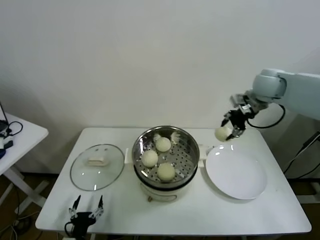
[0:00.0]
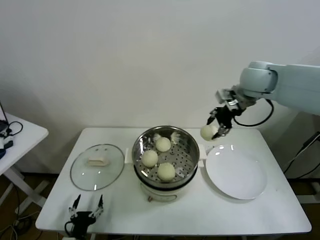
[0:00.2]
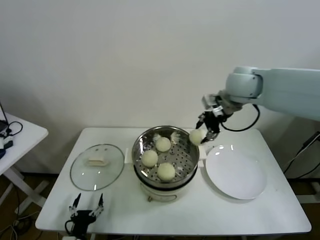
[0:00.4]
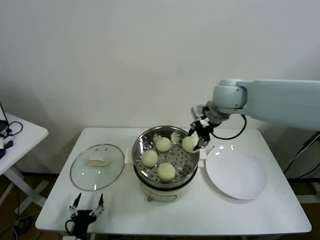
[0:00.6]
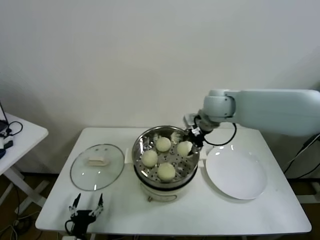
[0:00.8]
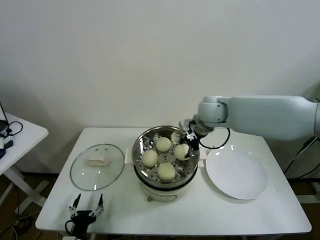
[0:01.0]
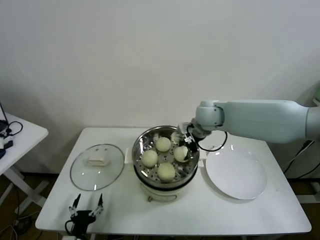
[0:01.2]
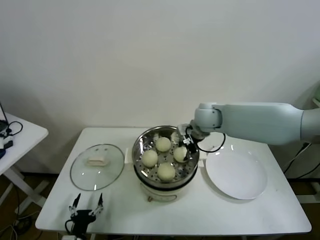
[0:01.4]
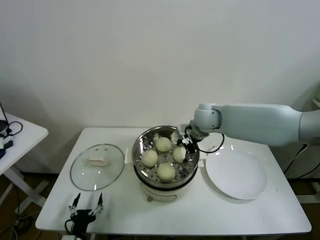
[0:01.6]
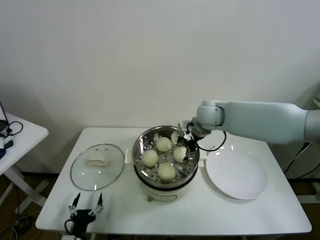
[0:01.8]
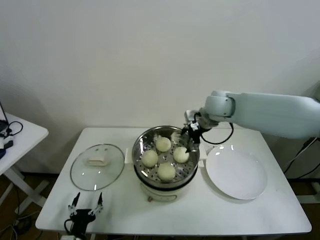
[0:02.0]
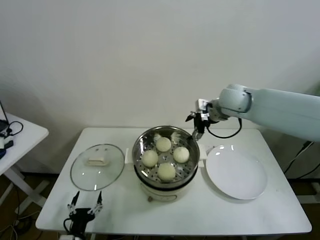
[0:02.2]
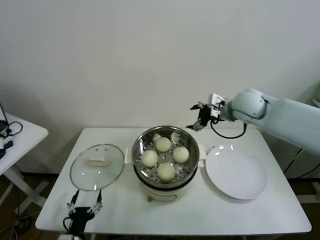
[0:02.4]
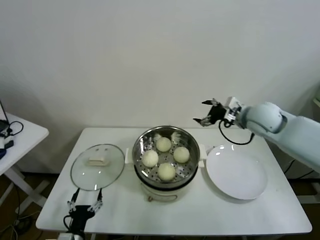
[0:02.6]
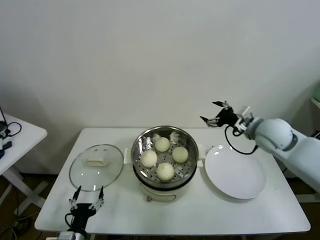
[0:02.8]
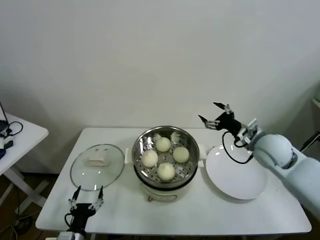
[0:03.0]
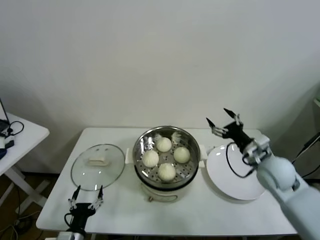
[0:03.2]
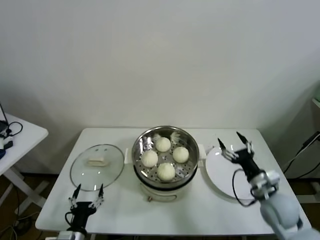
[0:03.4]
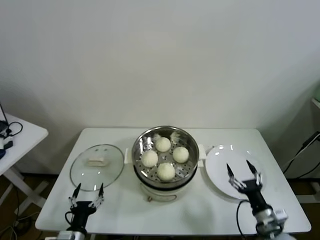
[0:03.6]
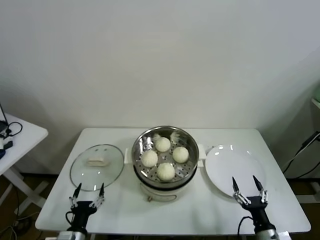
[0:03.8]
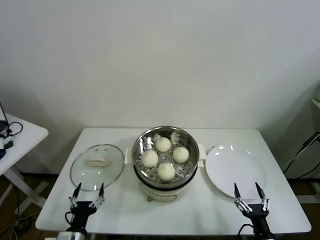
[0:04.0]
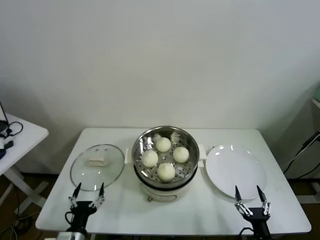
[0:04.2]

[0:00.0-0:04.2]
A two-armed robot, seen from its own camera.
Task of the whole recording: take steamed baozi put them in steamer.
Step, 0:00.0 to 0:01.6: Place the baozi on the steamer with right gripper.
0:00.0 to 0:01.4: The right gripper shifts approximately 20 cm to the left and downward.
0:01.4 to 0:02.8: The right gripper is displaced to the right and backward by approximately 20 cm, and opens.
0:02.8 to 0:04.2: The right gripper shifts approximately 40 cm backward and downward.

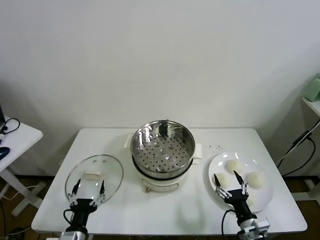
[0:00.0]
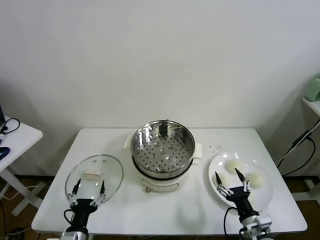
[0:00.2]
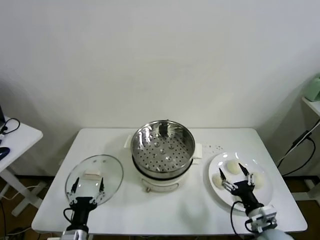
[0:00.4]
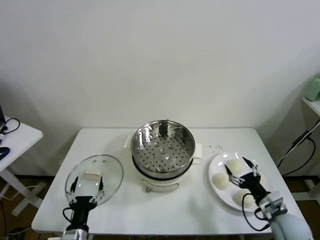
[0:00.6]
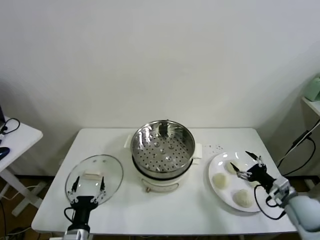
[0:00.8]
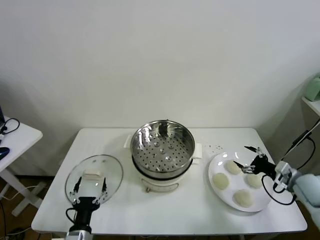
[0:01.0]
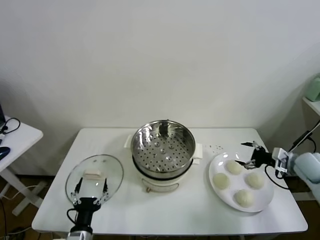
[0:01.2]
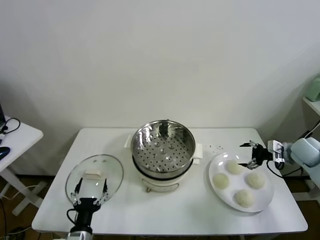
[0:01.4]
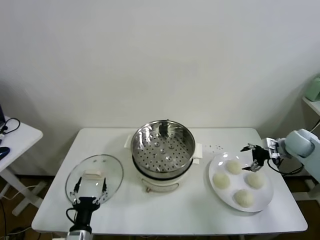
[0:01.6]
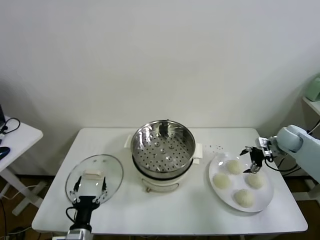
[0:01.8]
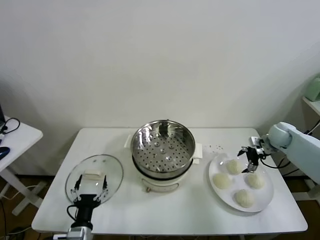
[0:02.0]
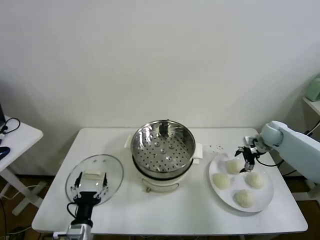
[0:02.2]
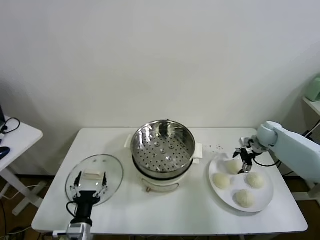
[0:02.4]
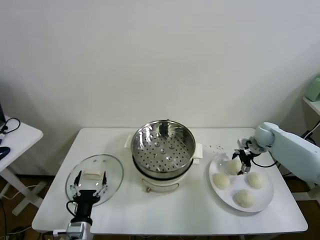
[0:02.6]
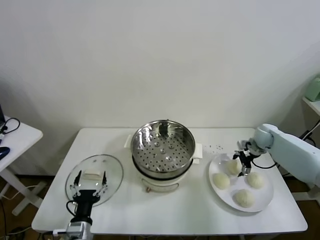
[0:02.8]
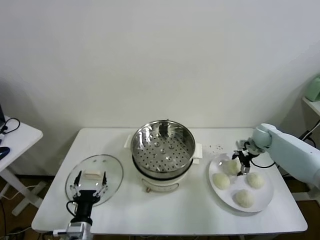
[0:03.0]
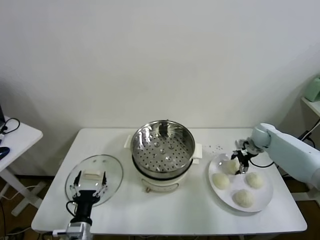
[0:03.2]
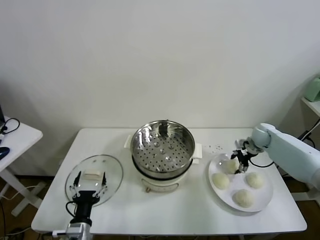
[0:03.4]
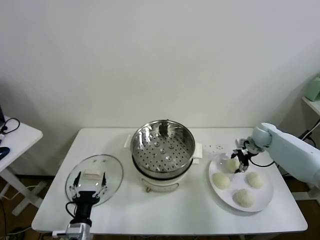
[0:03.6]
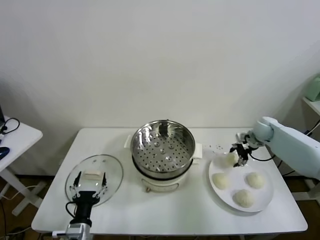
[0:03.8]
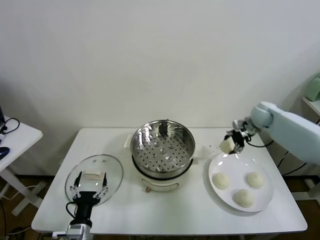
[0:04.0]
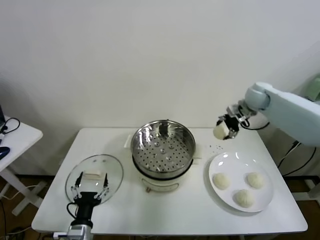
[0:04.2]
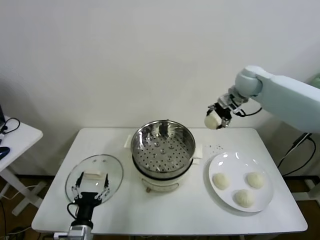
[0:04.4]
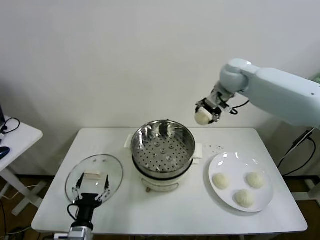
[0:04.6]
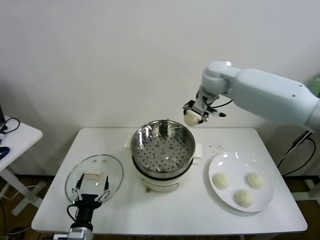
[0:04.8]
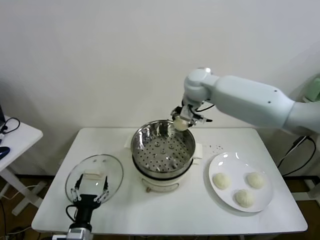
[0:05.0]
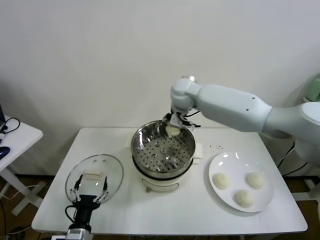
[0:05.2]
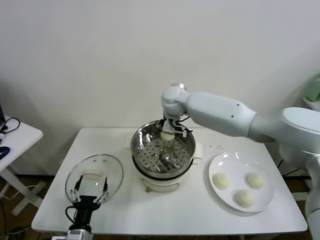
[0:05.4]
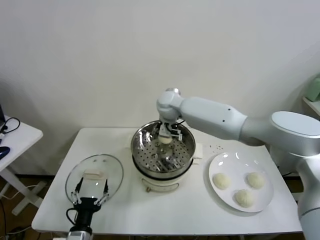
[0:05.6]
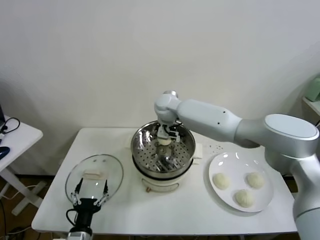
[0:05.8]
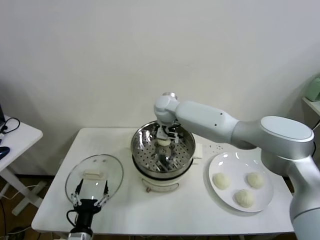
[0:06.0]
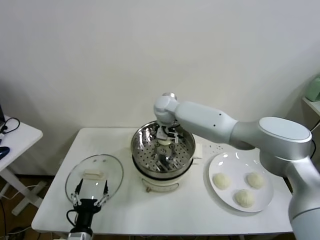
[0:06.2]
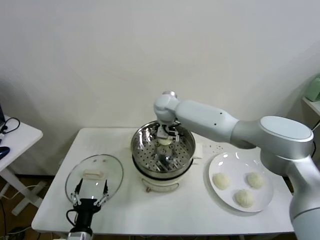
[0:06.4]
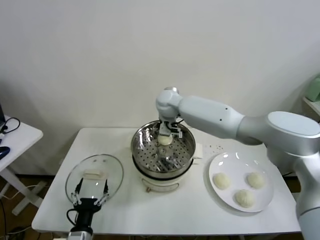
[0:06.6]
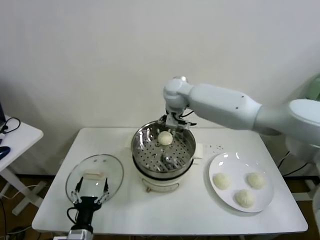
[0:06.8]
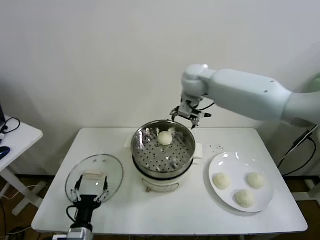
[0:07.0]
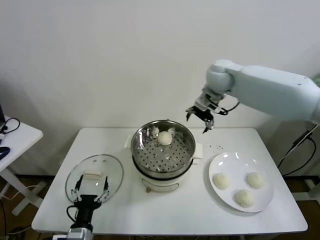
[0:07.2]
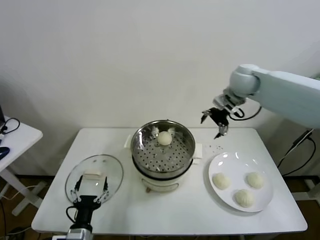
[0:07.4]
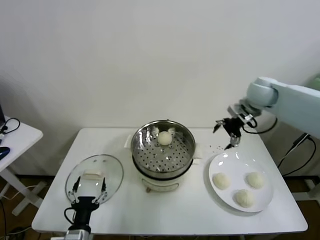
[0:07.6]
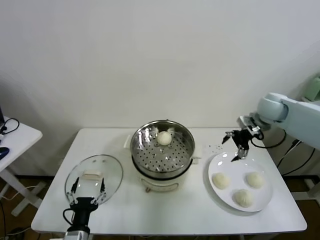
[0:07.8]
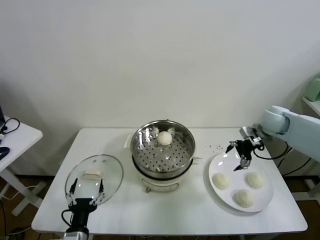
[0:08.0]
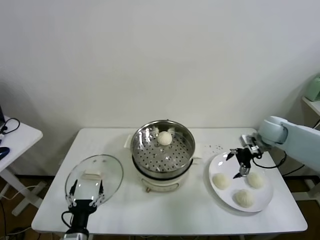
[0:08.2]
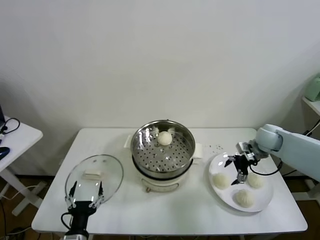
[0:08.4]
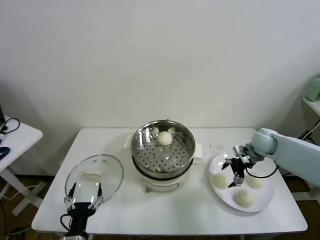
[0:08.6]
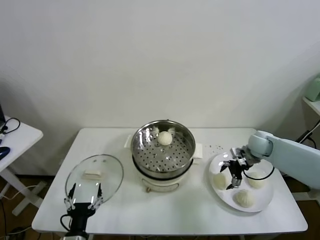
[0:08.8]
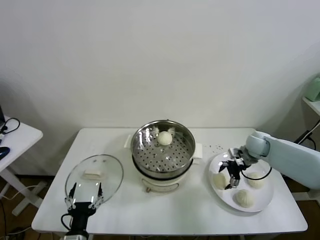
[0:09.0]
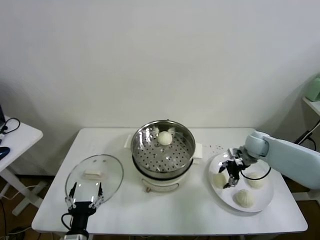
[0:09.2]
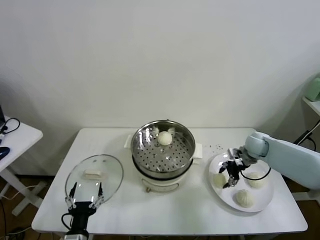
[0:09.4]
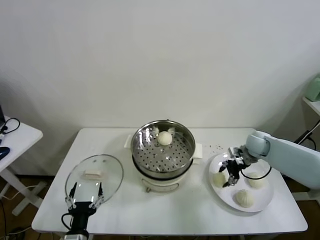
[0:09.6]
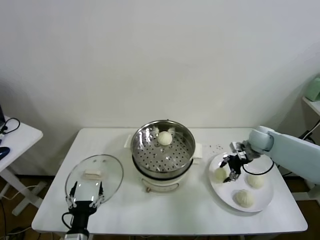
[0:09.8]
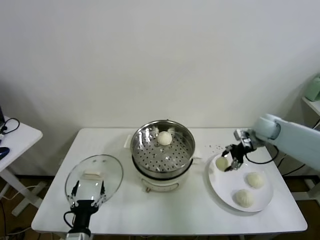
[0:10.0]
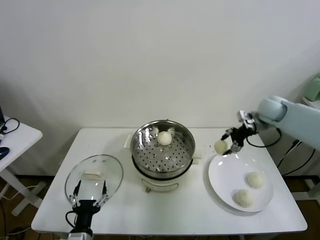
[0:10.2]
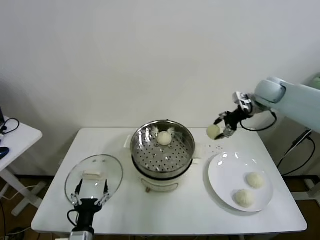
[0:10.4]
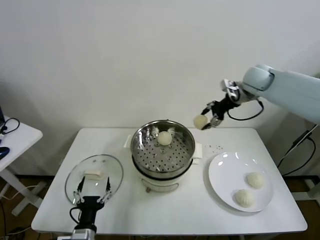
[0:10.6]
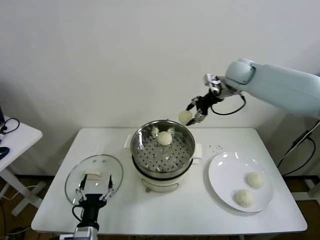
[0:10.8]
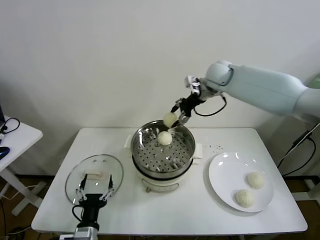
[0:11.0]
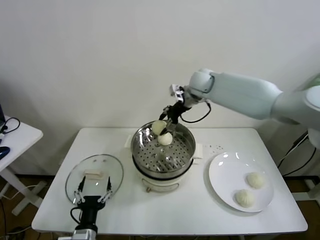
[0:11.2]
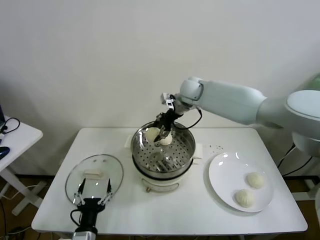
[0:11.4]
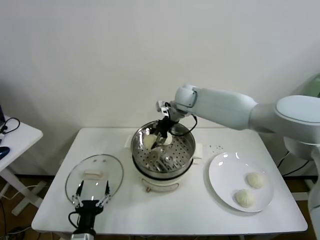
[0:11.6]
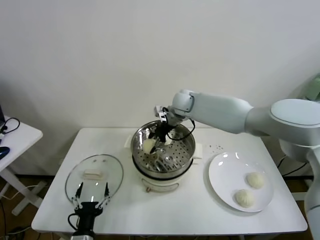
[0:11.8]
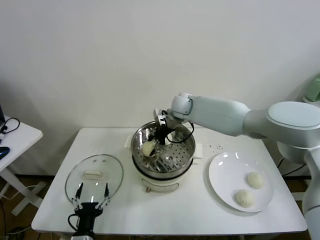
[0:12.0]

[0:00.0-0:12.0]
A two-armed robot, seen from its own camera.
Task of the whole recording: take steamed baozi put them in steamer.
Step, 0:00.0 to 0:03.0: Grasp the baozi in the plate with right gripper.
Step, 0:03.4 to 0:06.4: Place the baozi on the steamer with right gripper.
Step, 0:06.6 to 0:09.2: Grasp the baozi in the plate with right gripper.
0:01.6 to 0:03.0: The right gripper moves forward, to the left and downward, some 10 cm.
0:03.0 to 0:04.4: The right gripper heads upward and to the left, covering about 30 cm, and closes its fingers.
0:04.4 to 0:06.0: The right gripper travels to the left and downward by roughly 25 cm, and opens up.
0:06.0 to 0:07.6: The right gripper heads to the right, covering roughly 35 cm, and opens.
0:07.6 to 0:09.0: The right gripper moves downward, about 20 cm.
0:09.0 to 0:10.4: The right gripper goes some 20 cm upward, and closes up.
0:10.4 to 0:12.0: The right gripper goes about 25 cm to the left.

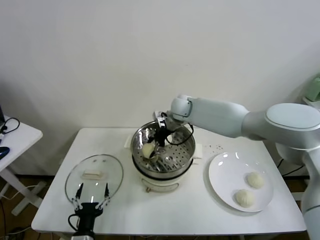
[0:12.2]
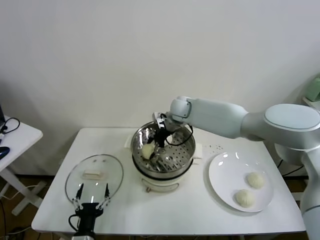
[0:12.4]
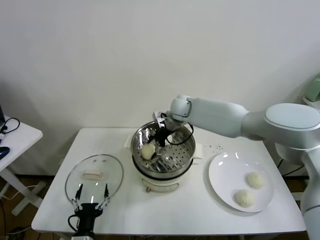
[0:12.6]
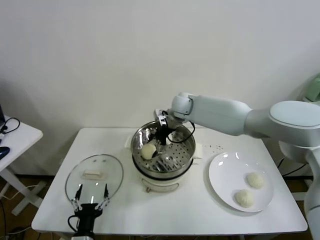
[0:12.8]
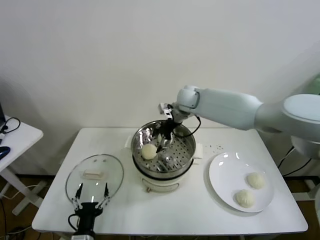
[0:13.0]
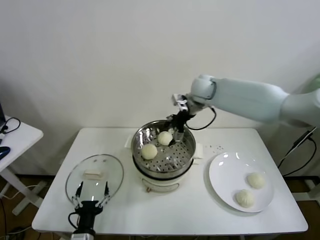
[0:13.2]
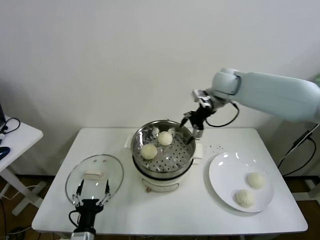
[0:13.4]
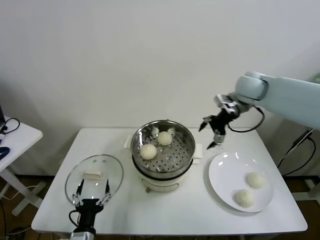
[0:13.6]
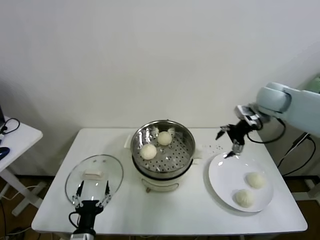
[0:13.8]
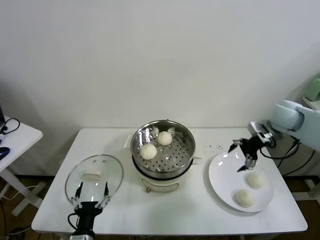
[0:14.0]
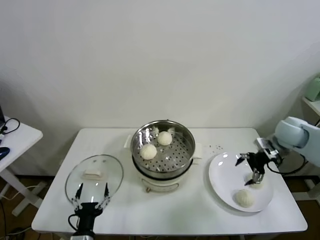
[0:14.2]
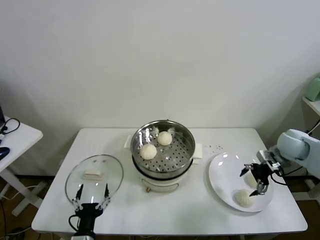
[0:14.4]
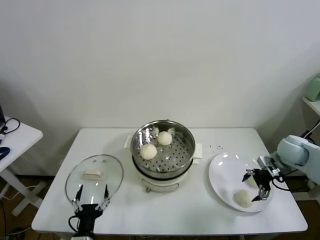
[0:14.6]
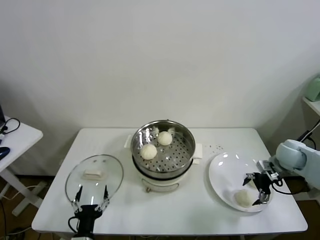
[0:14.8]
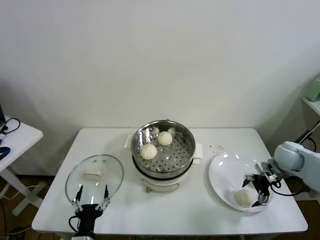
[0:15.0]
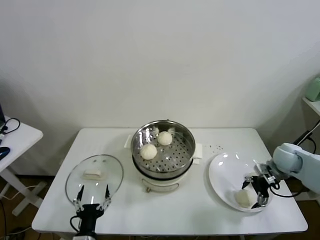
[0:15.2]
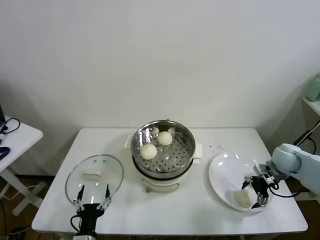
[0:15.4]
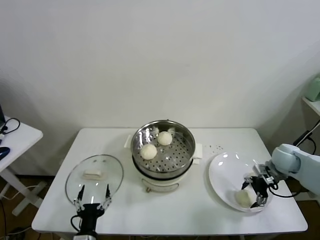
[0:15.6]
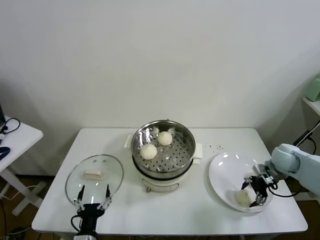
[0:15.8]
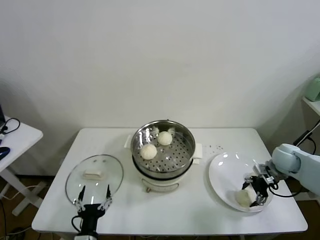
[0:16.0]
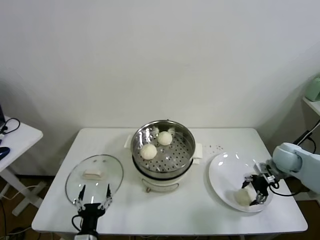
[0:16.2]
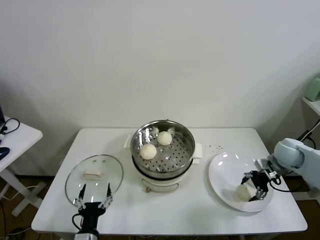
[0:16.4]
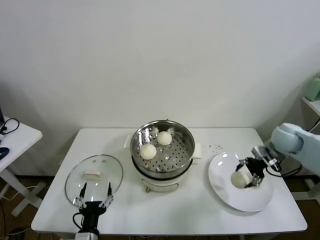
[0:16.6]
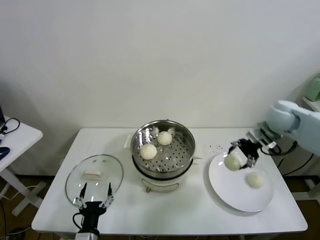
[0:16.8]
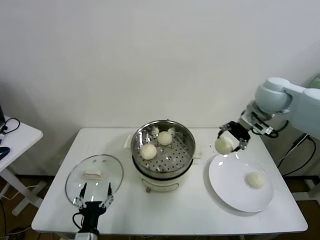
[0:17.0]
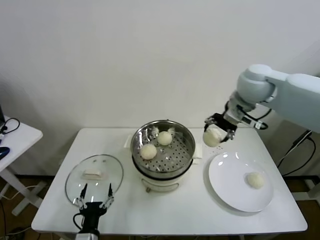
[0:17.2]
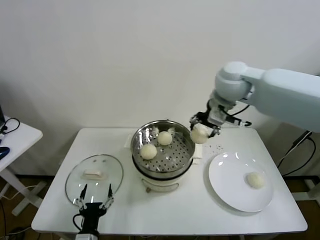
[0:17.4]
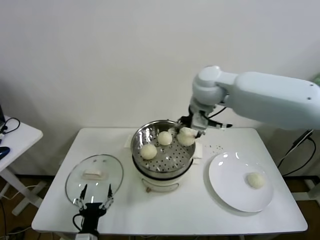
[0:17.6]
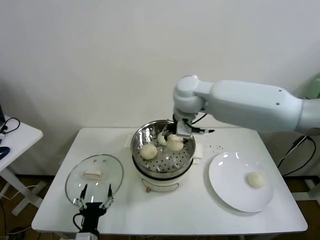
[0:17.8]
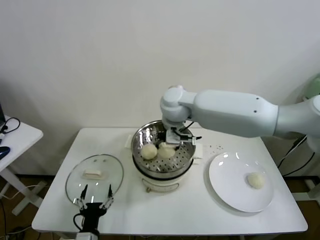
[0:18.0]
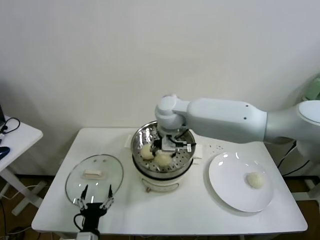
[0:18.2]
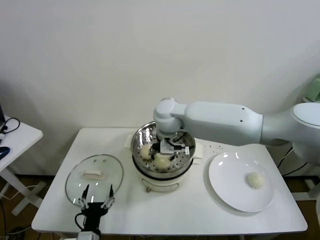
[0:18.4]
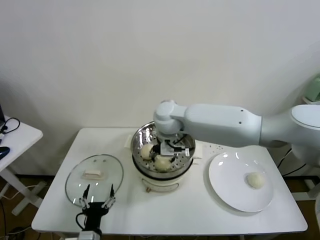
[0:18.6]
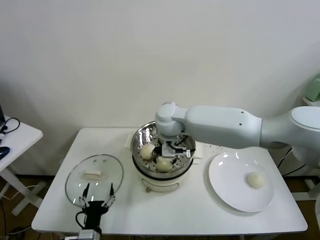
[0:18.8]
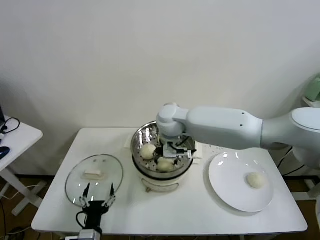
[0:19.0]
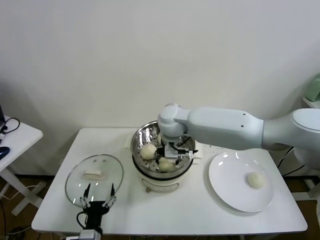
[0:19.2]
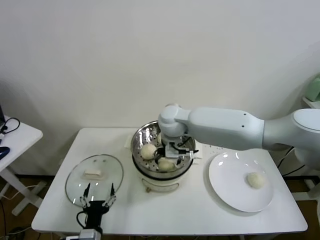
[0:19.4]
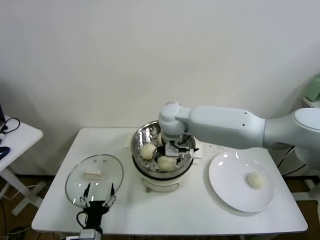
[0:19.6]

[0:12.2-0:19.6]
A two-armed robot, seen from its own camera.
Task of the whole recording: take steamed baozi put them in steamer.
Step, 0:12.8 to 0:16.0: Grasp the baozi in the plate with right gripper.
Step, 0:16.2 to 0:19.4: Place the baozi on the steamer with right gripper.
0:12.2 to 0:13.6: The right gripper moves to the right and upward, some 25 cm, and opens up.
0:13.6 to 0:15.2: The right gripper heads downward, to the right and backward, covering approximately 30 cm.
0:15.2 to 0:16.6: The right gripper travels upward by some 10 cm, and closes.
0:16.6 to 0:18.2: The right gripper travels to the left by roughly 40 cm.
0:18.2 to 0:19.6: The right gripper opens up.
